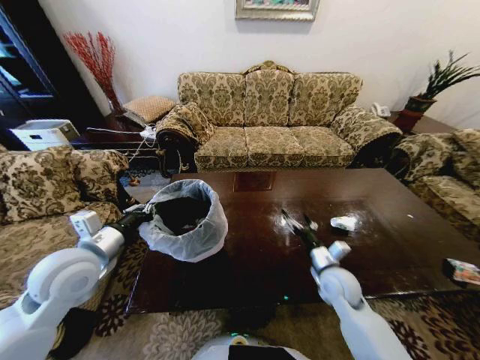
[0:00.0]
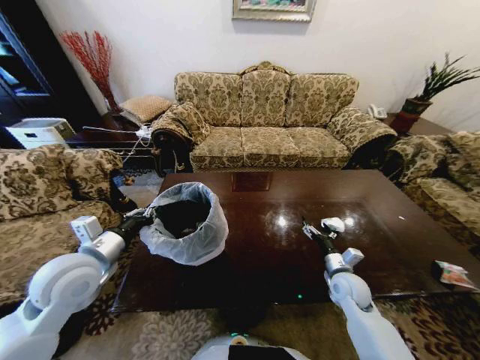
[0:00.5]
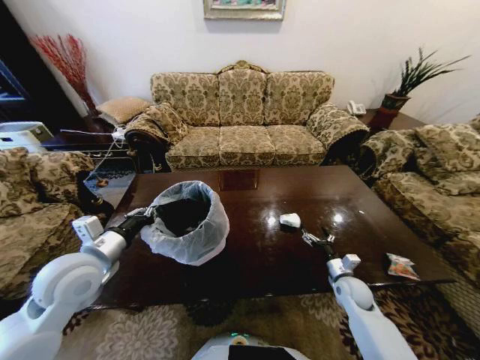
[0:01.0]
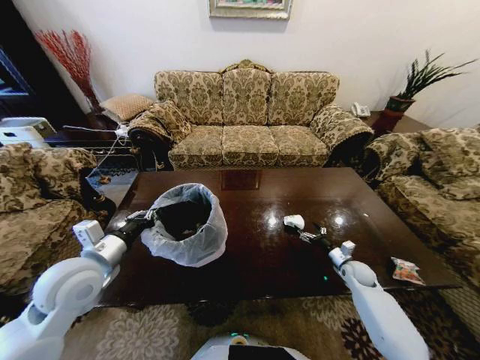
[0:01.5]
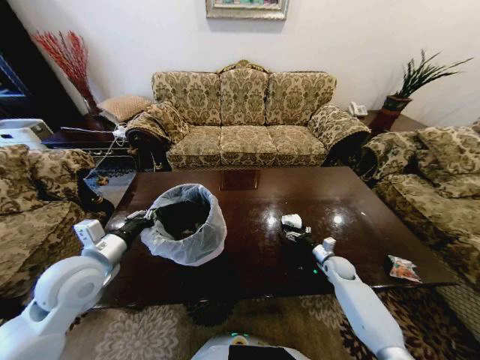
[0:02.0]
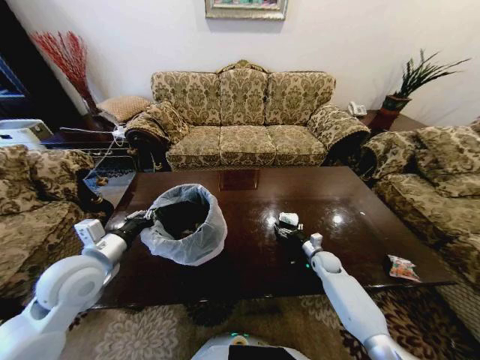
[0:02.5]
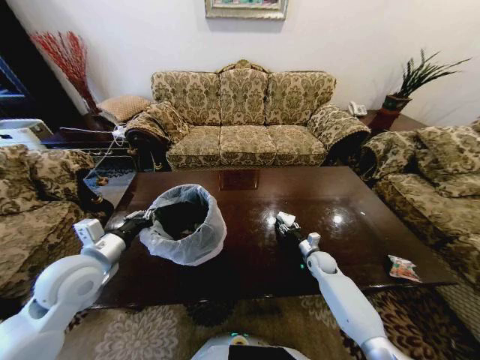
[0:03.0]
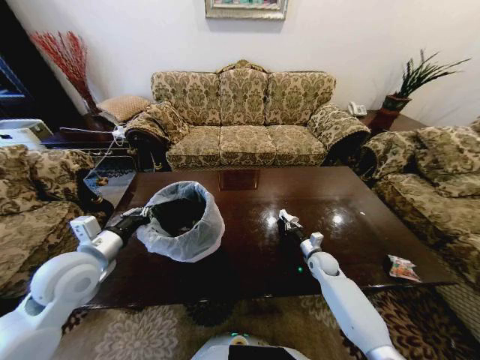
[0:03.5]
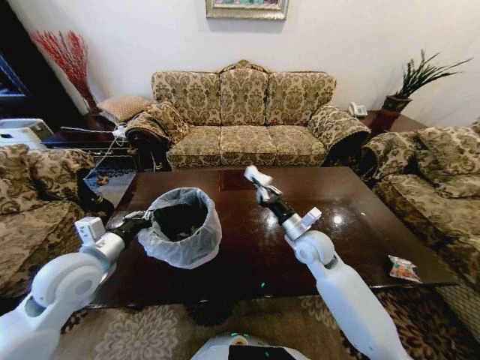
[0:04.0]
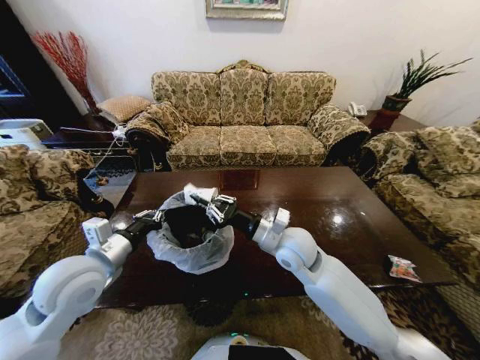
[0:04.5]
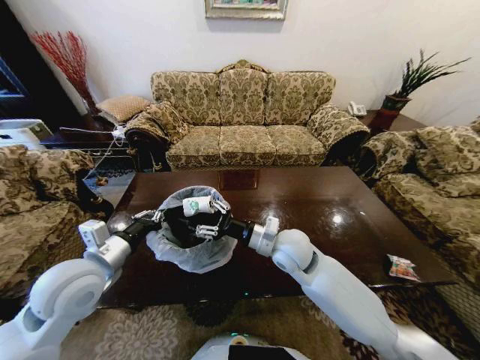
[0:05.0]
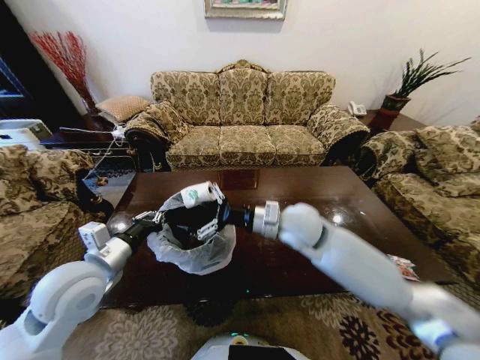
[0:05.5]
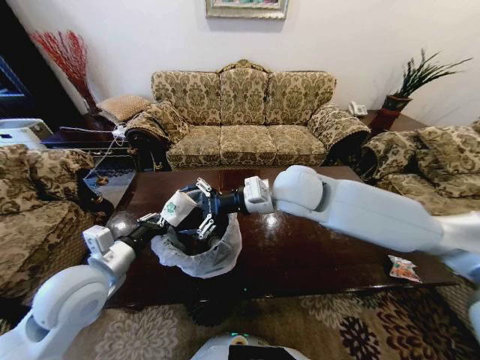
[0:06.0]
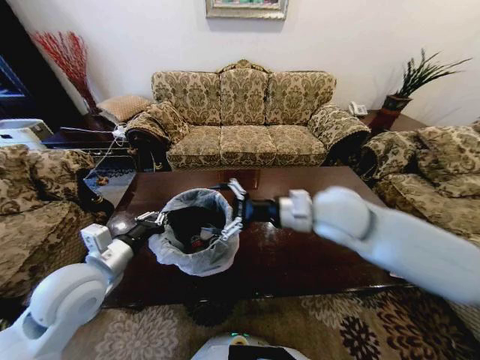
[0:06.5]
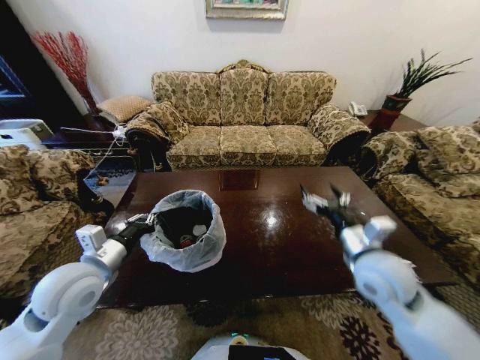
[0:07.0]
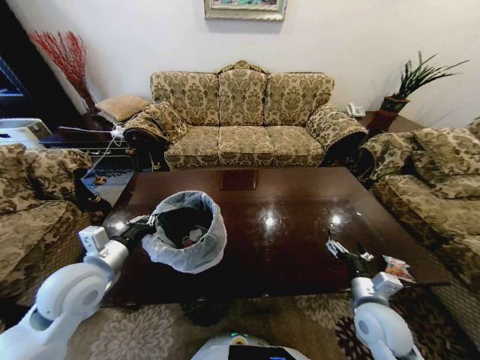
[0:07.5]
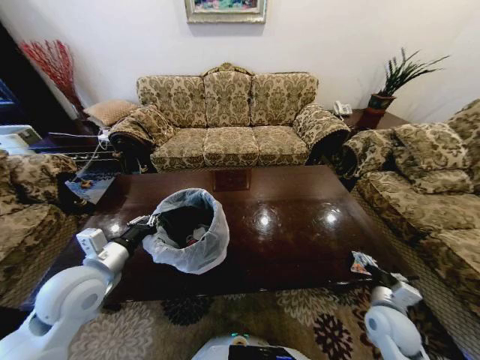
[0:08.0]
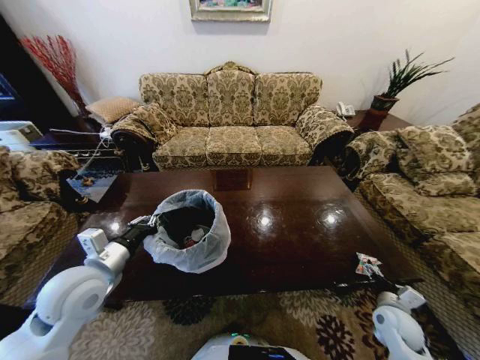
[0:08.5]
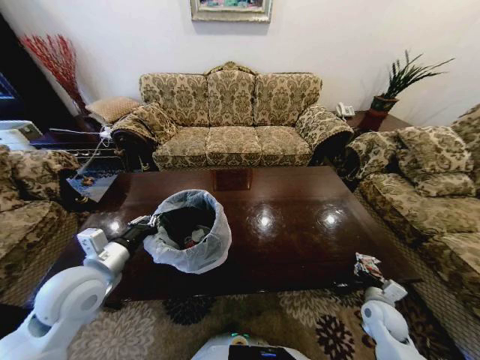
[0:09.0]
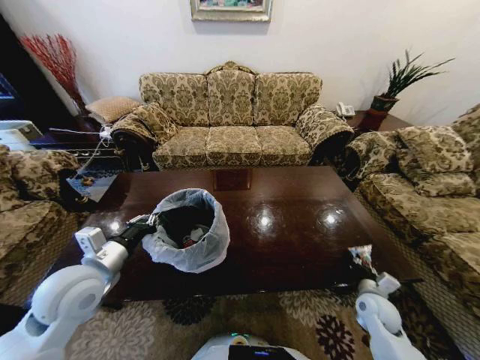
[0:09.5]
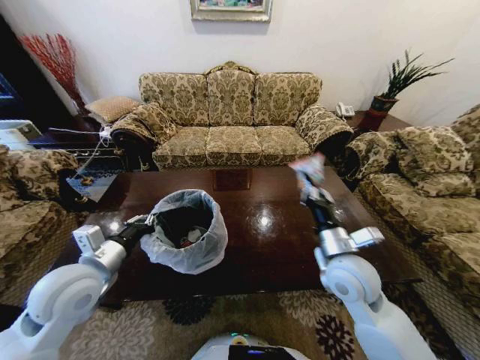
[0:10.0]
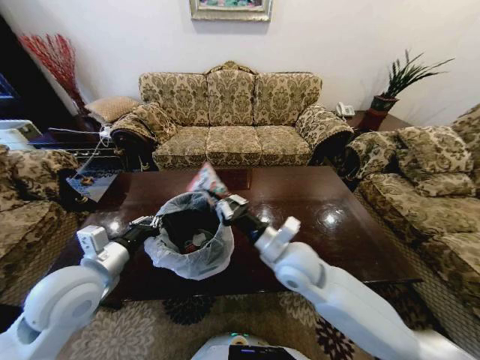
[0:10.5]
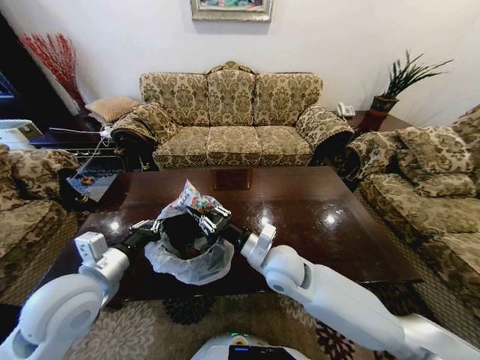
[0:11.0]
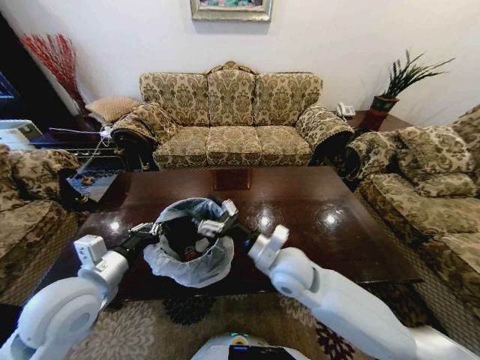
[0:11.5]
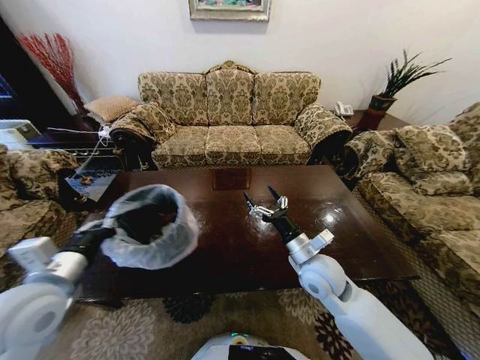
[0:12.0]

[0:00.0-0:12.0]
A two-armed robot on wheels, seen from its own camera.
Task of the whole recording: Move to the front of the table and place the trash on the table into the trash bin.
0:00.0 to 0:02.0: The right gripper goes about 20 cm downward, forward and to the right.
0:02.0 to 0:04.0: The right gripper heads upward and to the left, covering approximately 30 cm, and closes.
0:04.0 to 0:06.0: The right gripper shifts about 20 cm upward and to the left, and opens its fingers.
0:06.0 to 0:08.0: The right gripper travels downward, to the right and backward by about 50 cm.
0:08.0 to 0:10.0: The right gripper goes some 25 cm upward and to the left, and closes up.
0:10.0 to 0:12.0: The left gripper changes place by some 5 cm, while the right gripper heads downward, covering some 5 cm, goes to the left and returns, roughly 15 cm each way, and opens.

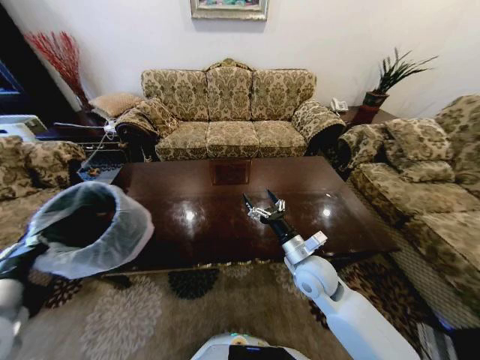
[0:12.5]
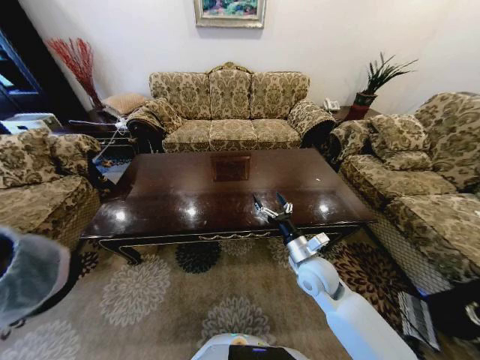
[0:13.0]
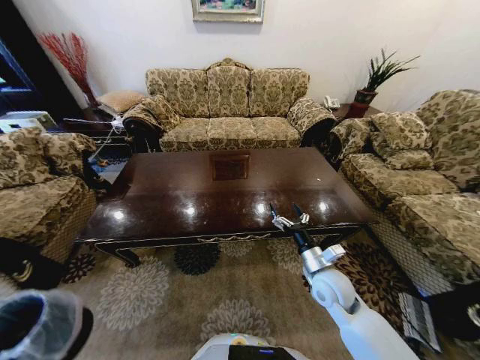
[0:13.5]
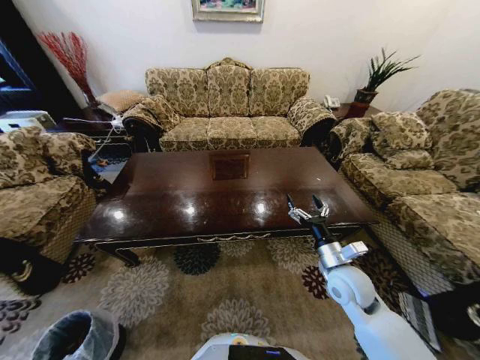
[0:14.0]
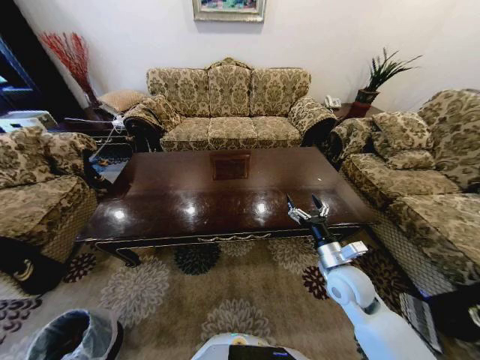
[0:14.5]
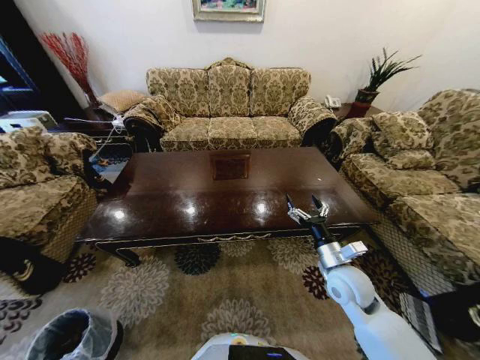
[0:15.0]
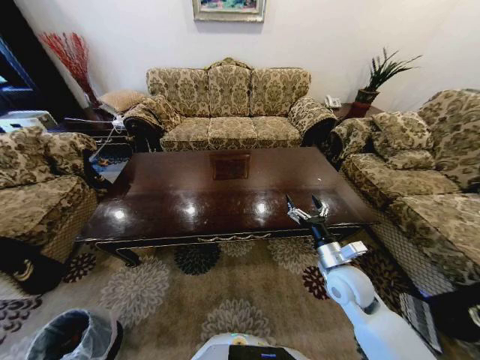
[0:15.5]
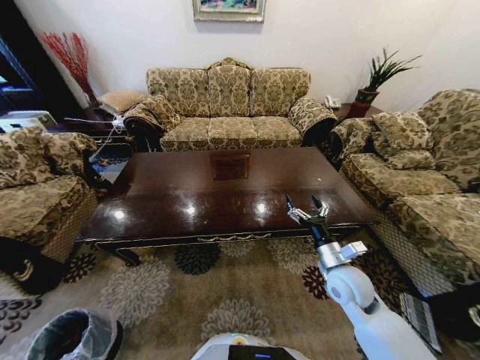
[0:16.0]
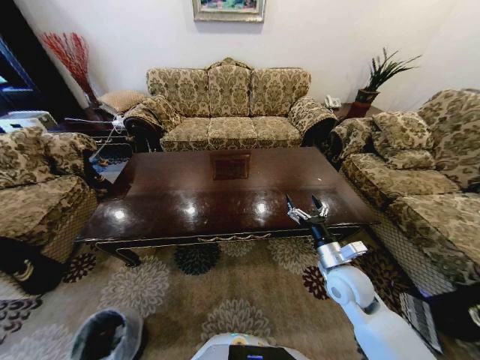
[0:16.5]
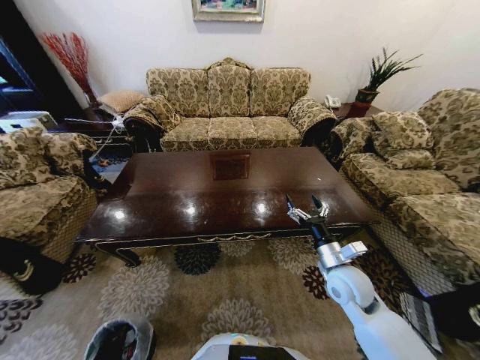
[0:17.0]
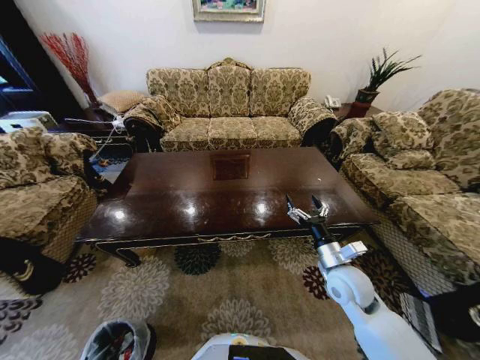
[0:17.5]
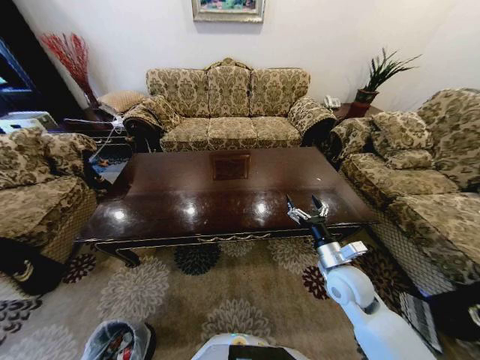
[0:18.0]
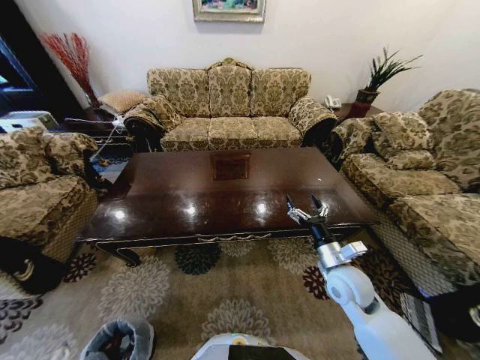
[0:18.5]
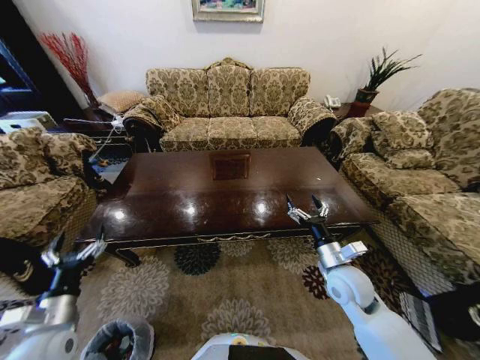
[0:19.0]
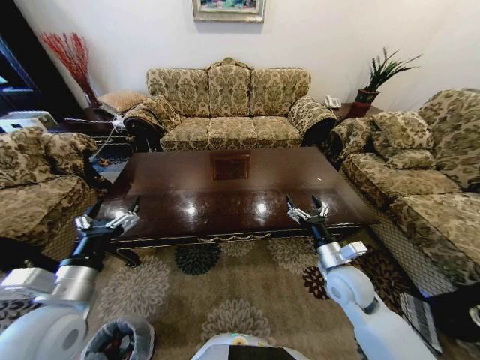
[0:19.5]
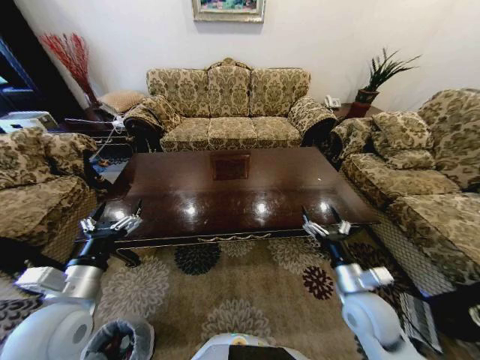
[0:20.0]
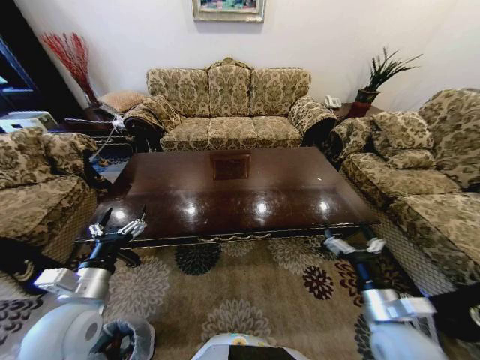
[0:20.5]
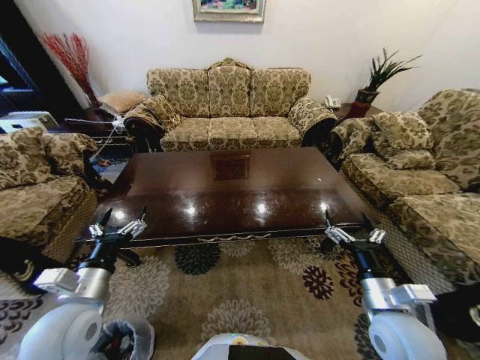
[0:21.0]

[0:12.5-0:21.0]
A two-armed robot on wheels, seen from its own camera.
Task of the whole recording: Move to the front of the table and place the trash on the table into the trash bin.
0:12.5 to 0:14.5: The left gripper shifts approximately 40 cm downward. The right gripper moves to the right, some 10 cm.
0:14.5 to 0:16.5: The left gripper is displaced downward and to the right by about 10 cm.
0:16.5 to 0:19.0: The left gripper goes roughly 35 cm upward, and opens up.
0:19.0 to 0:21.0: The left gripper shifts some 10 cm to the right and upward. Meanwhile the right gripper heads backward, covering roughly 10 cm.
